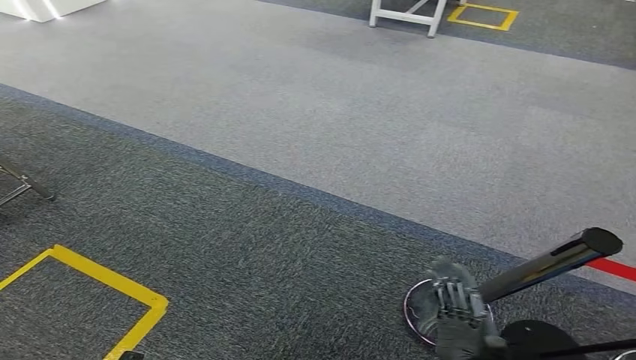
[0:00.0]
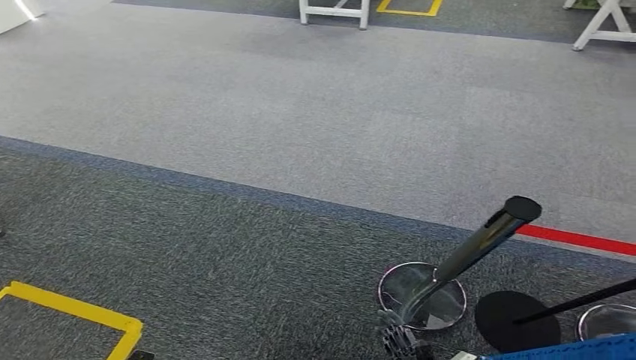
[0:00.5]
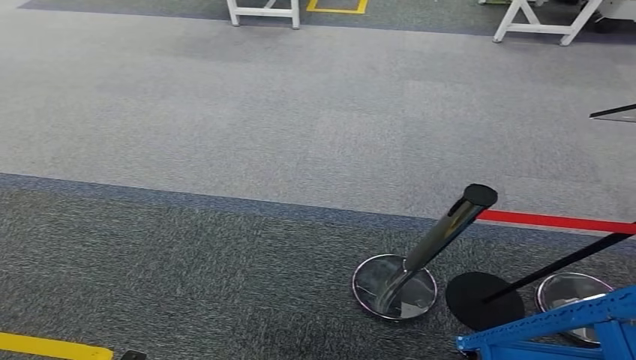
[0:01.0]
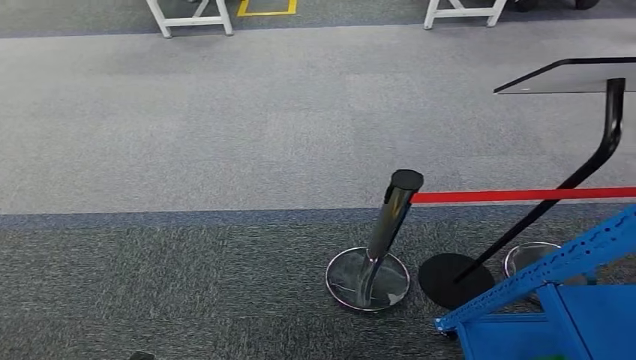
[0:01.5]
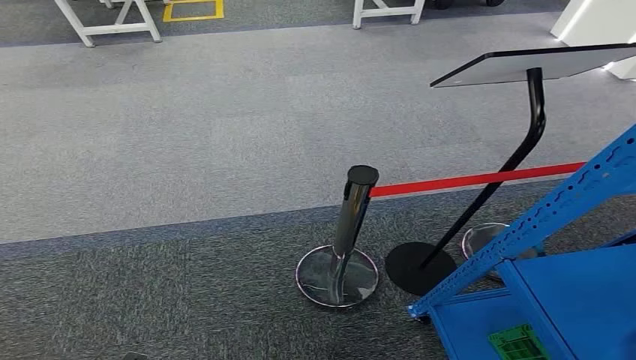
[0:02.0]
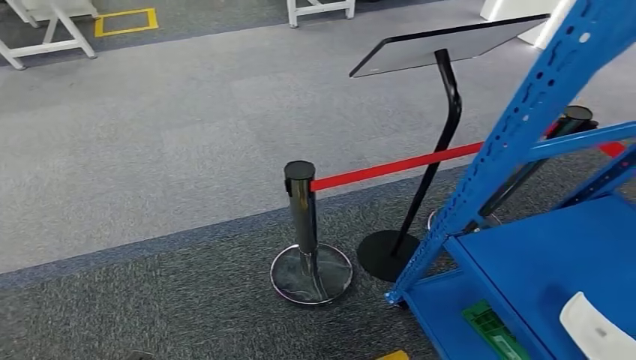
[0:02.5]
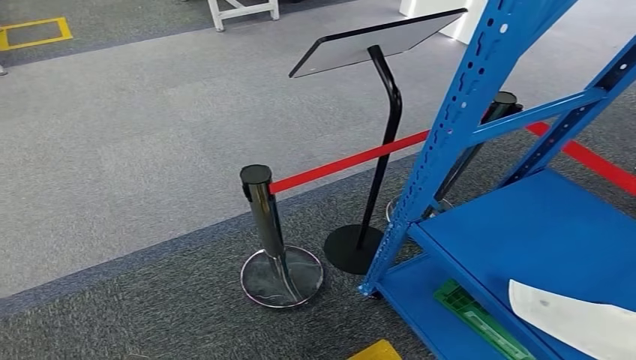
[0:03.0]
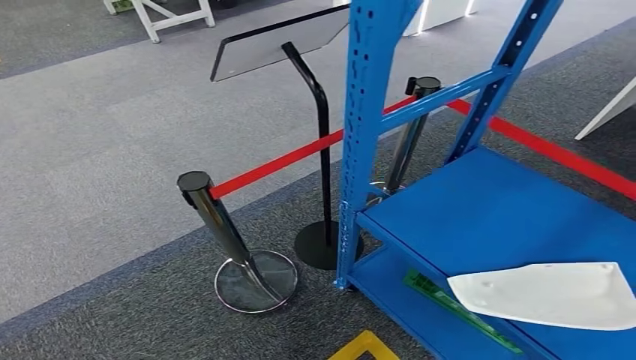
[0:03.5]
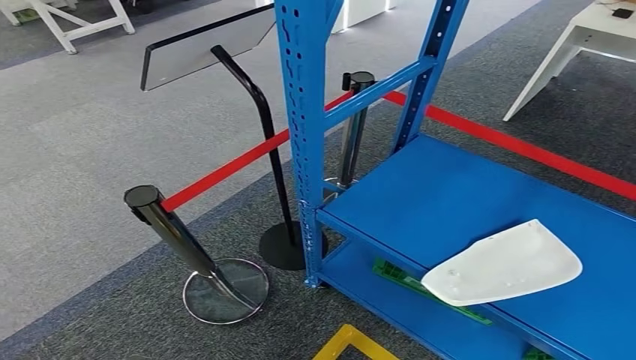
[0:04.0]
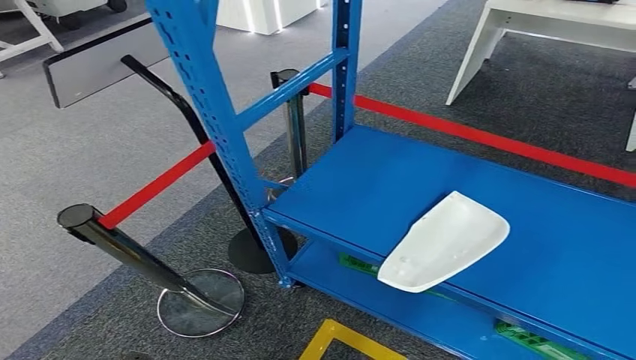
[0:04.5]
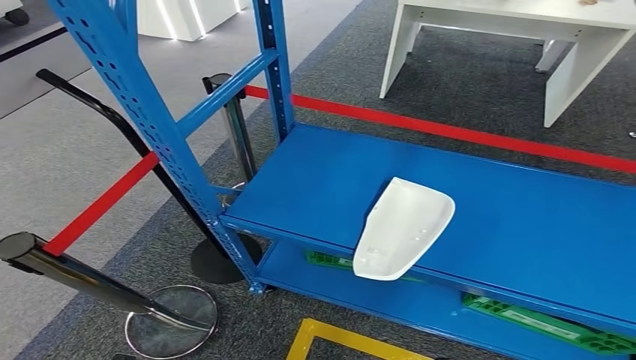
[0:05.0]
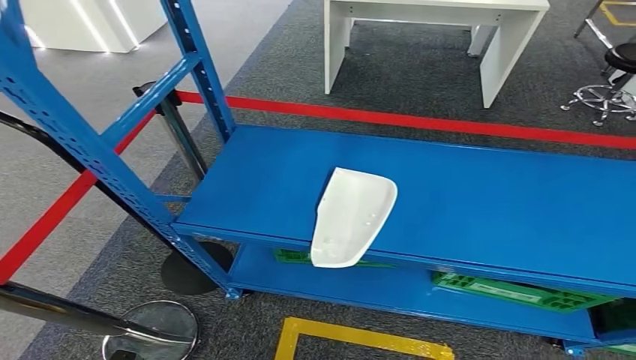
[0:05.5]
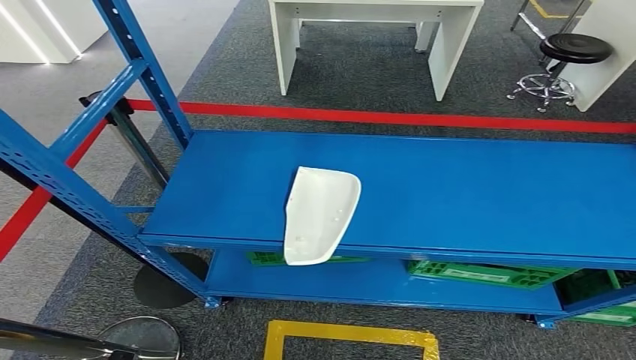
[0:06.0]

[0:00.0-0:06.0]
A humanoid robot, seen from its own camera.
Step, 0:00.0 to 0:06.0: Return to the initial position at the workbench.
